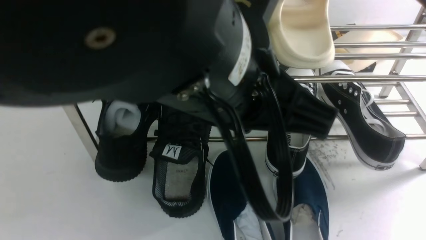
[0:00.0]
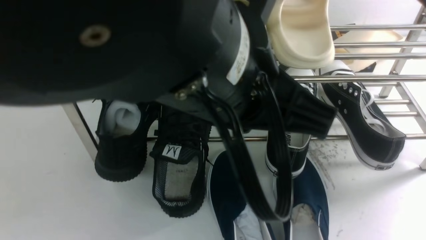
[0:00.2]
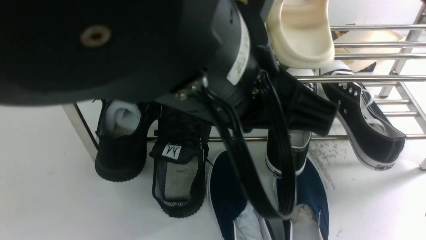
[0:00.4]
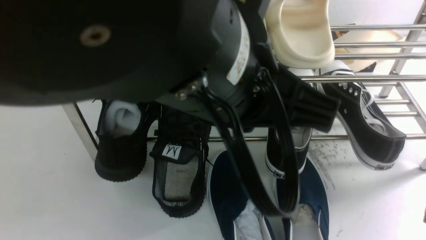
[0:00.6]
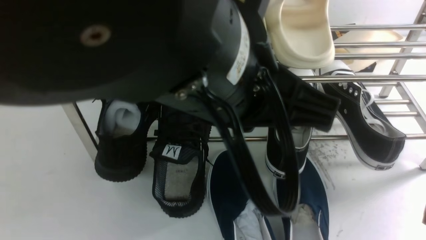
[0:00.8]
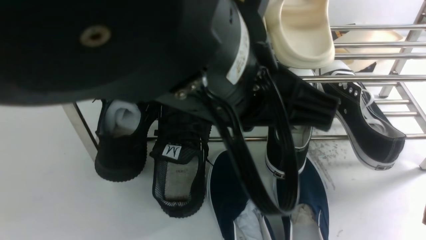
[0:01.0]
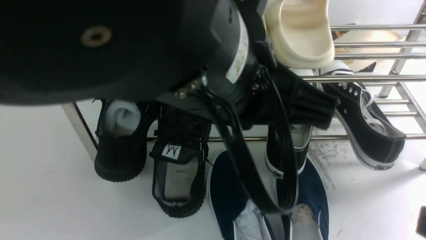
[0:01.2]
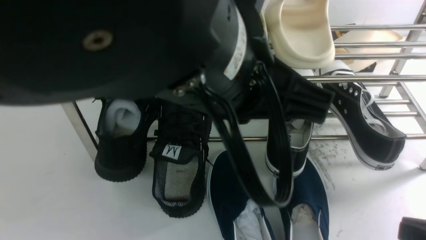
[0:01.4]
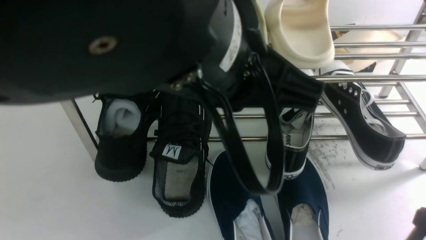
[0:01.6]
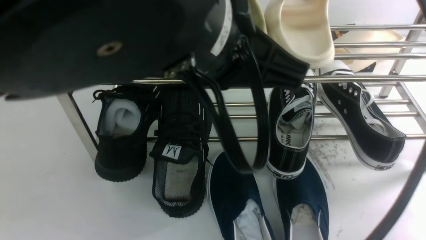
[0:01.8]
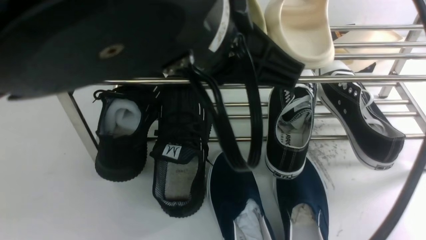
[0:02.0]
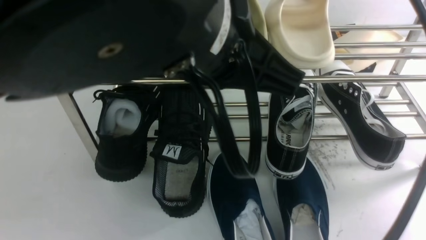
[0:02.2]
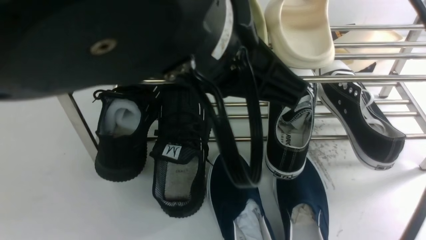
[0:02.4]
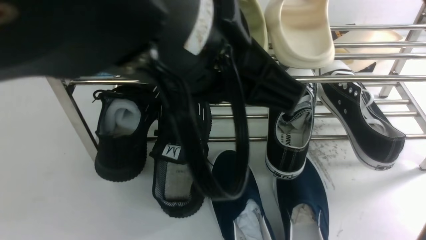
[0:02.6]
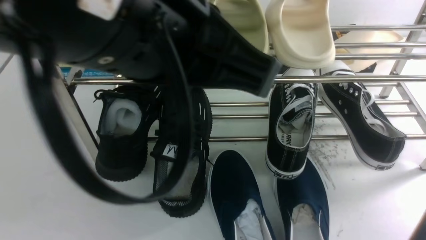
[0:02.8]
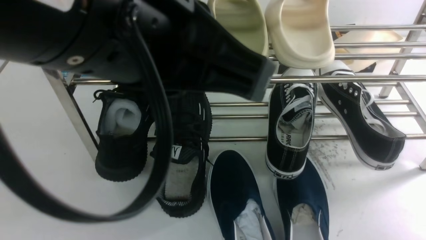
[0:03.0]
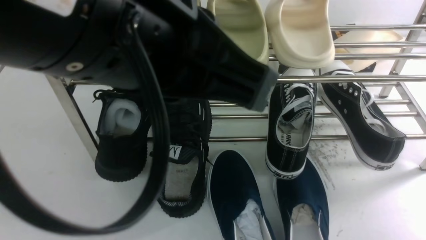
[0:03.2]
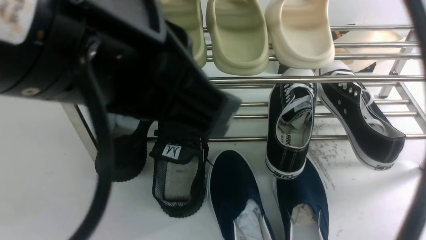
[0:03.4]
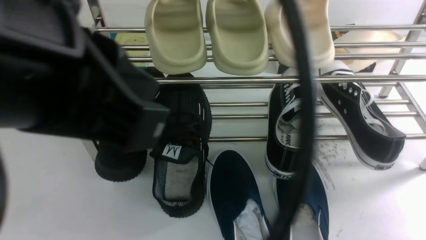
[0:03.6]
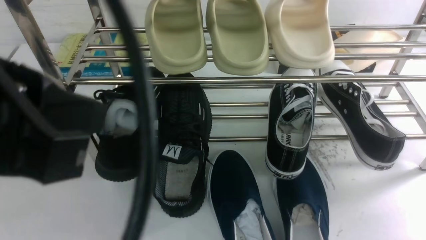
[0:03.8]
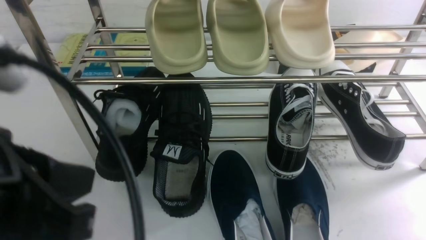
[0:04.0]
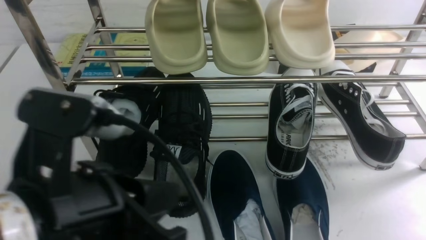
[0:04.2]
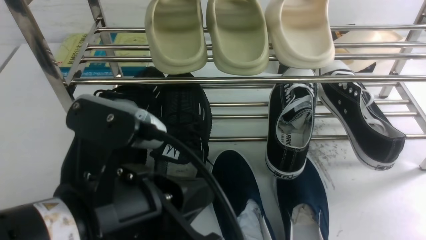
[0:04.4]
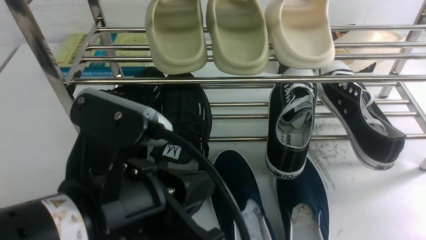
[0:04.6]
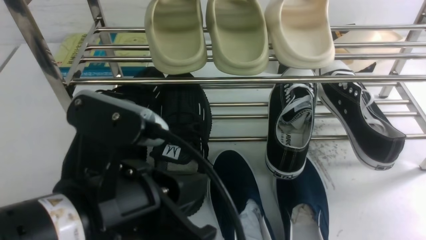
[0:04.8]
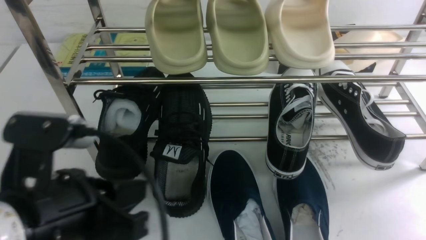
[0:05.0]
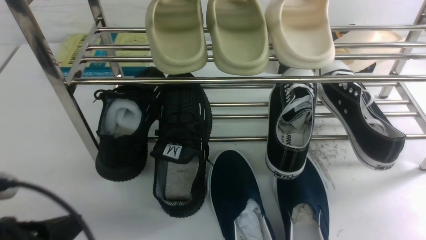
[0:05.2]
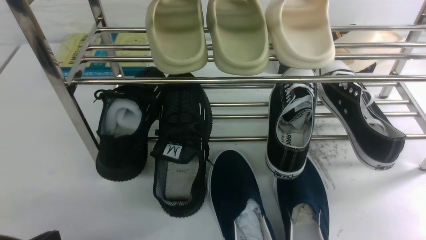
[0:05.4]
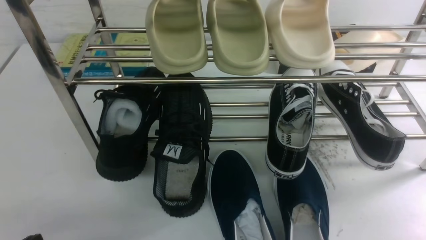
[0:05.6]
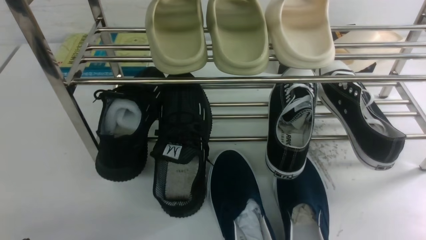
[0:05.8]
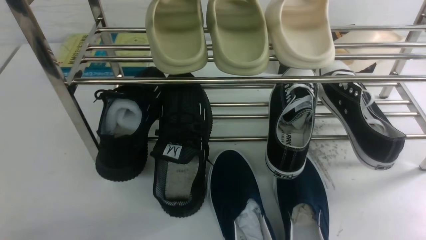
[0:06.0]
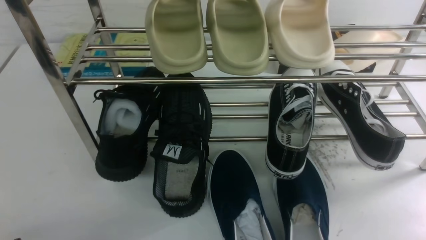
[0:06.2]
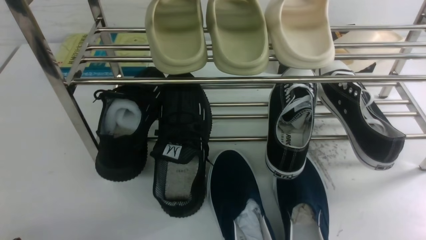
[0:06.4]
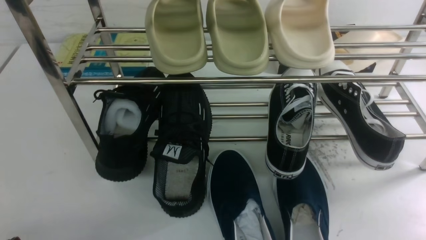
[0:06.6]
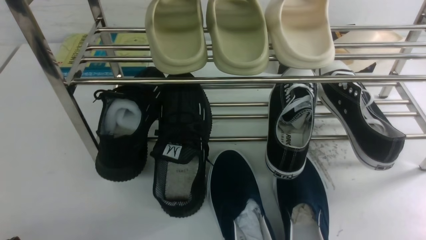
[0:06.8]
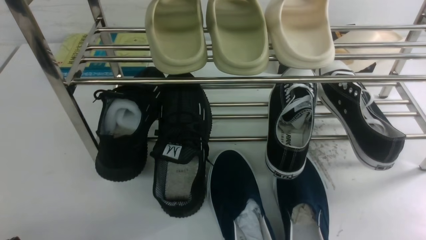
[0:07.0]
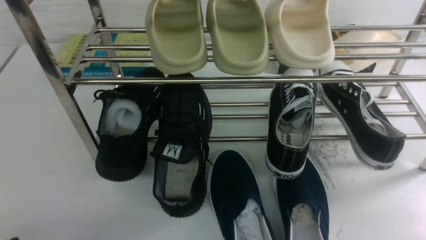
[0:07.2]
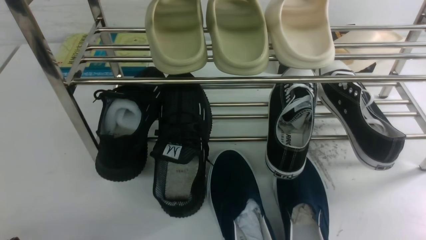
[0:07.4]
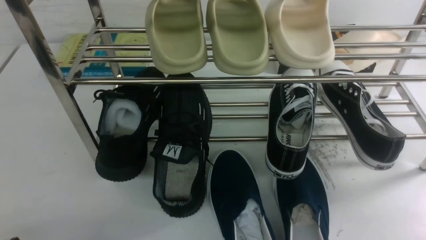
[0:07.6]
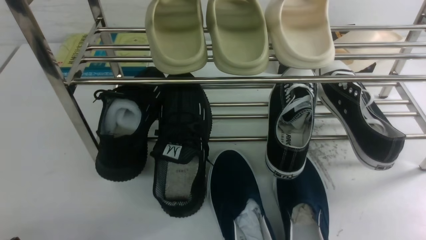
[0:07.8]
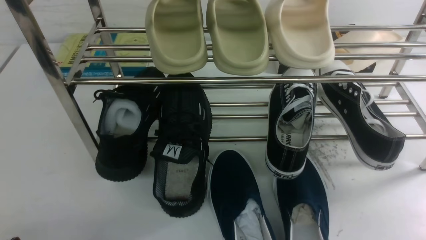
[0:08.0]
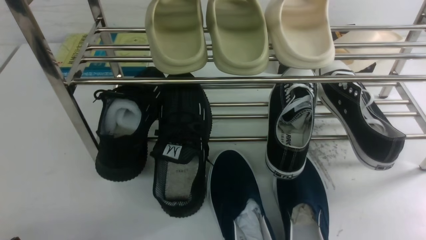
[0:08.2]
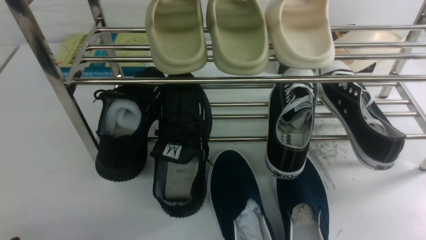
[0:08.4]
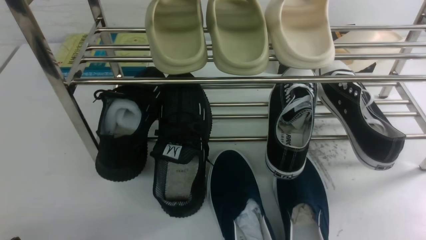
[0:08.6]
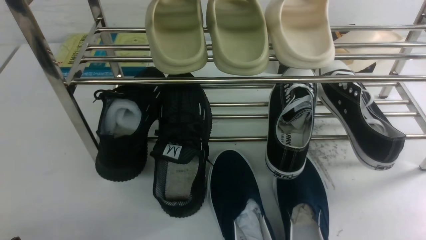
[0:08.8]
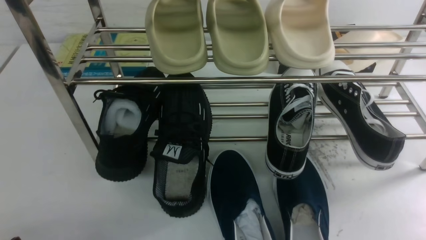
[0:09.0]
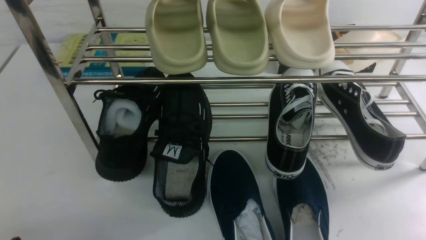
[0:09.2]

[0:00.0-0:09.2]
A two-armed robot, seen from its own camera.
0:00.0 to 0:01.6: The right gripper moves downward, roughly 10 cm.
0:01.6 to 0:03.0: The right gripper ends up roughly 5 cm from where it was. Meanwhile the left gripper changes place by roughly 5 cm.
0:03.0 to 0:04.6: The left gripper moves downward, approximately 15 cm.
0:04.6 to 0:06.2: The left gripper moves to the left and downward, approximately 25 cm.
0:06.2 to 0:09.2: The two grippers keep their place.

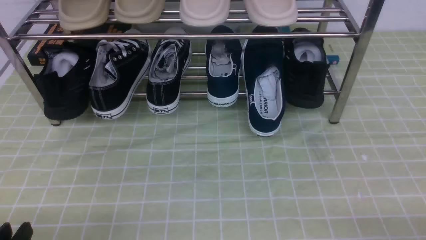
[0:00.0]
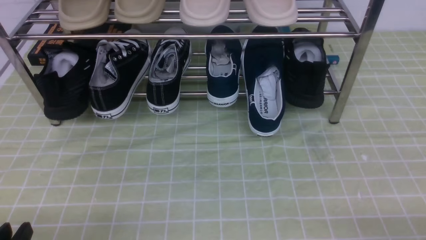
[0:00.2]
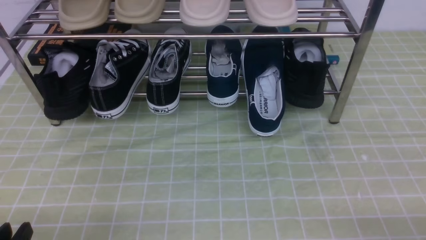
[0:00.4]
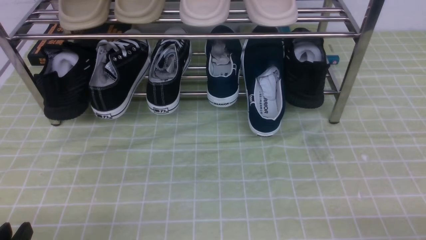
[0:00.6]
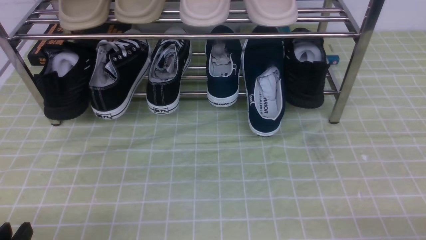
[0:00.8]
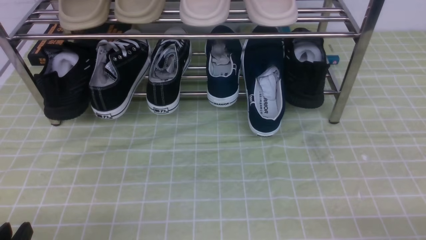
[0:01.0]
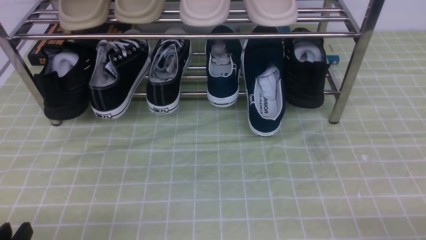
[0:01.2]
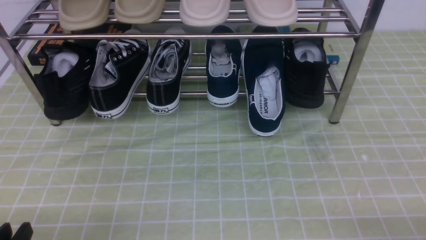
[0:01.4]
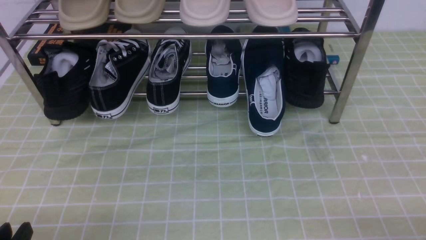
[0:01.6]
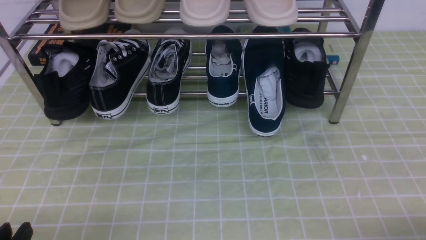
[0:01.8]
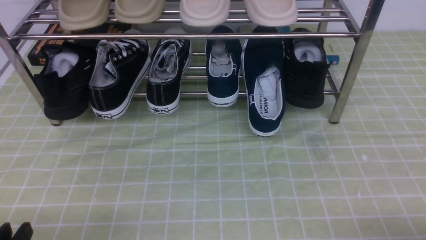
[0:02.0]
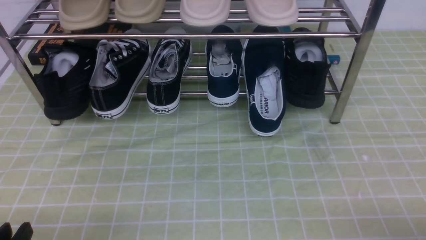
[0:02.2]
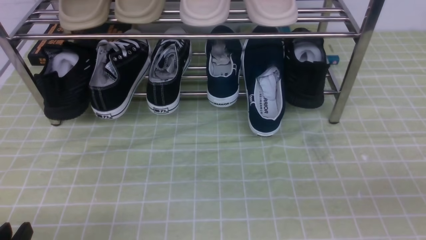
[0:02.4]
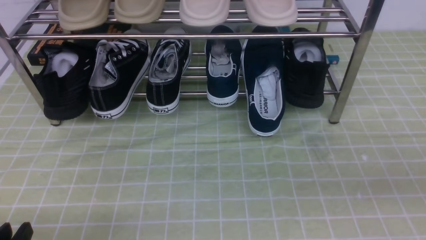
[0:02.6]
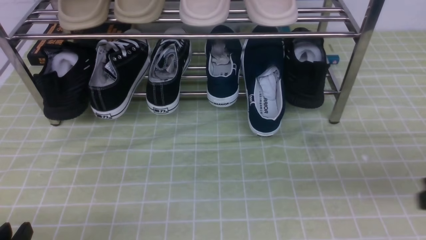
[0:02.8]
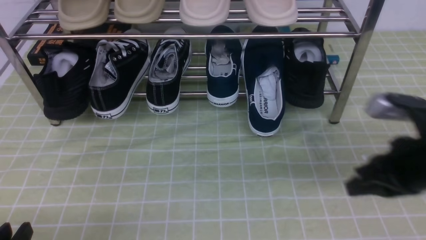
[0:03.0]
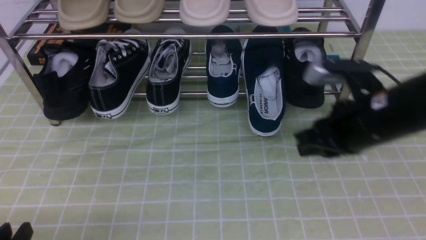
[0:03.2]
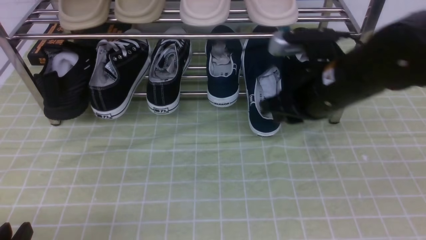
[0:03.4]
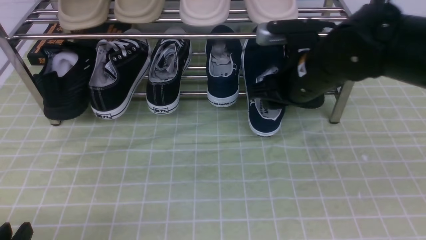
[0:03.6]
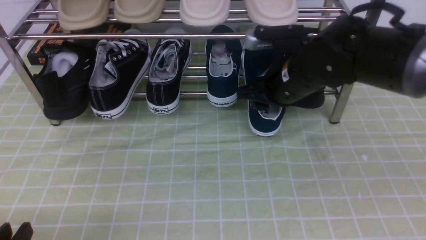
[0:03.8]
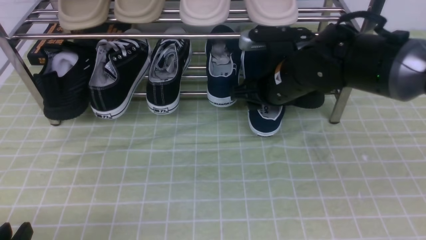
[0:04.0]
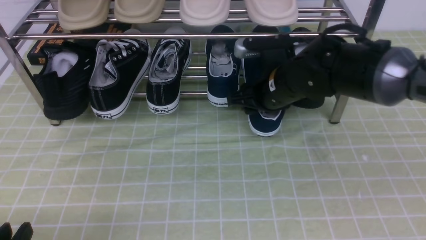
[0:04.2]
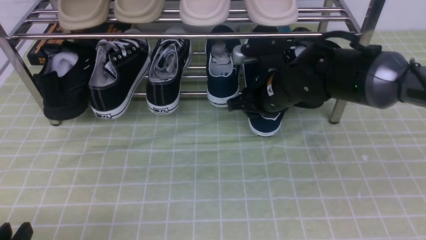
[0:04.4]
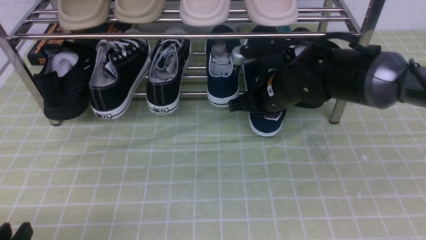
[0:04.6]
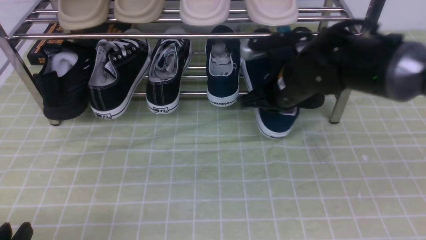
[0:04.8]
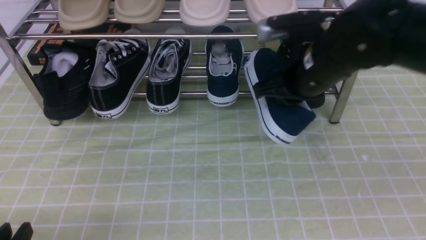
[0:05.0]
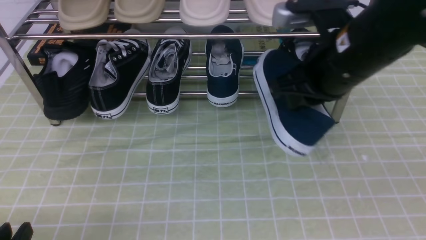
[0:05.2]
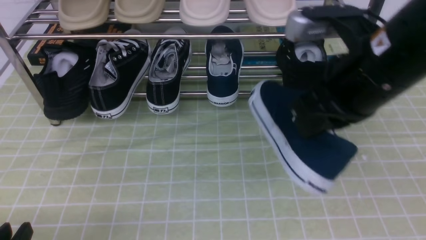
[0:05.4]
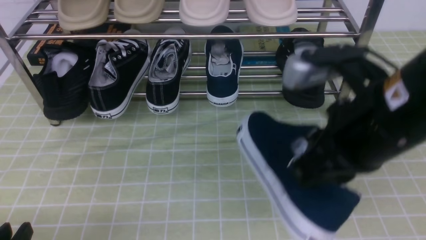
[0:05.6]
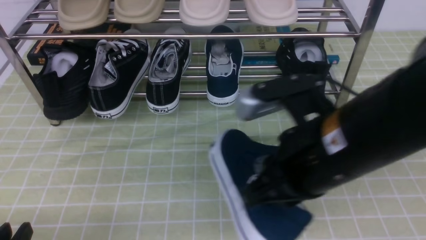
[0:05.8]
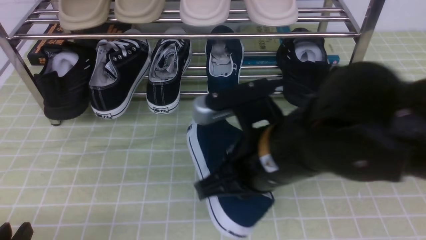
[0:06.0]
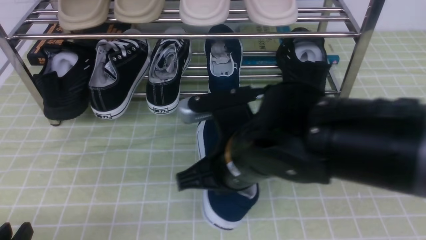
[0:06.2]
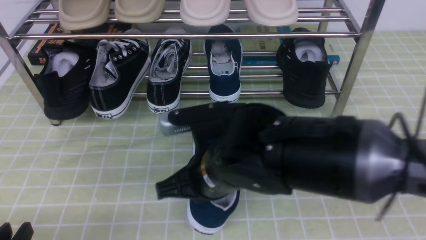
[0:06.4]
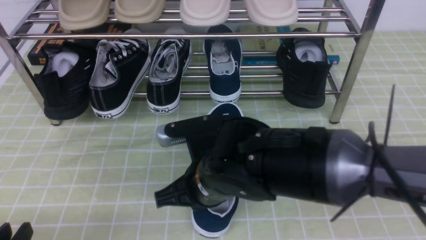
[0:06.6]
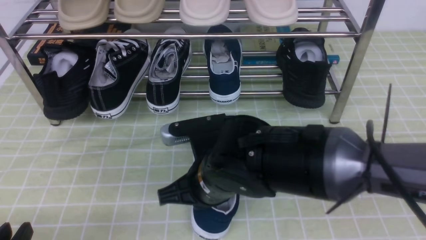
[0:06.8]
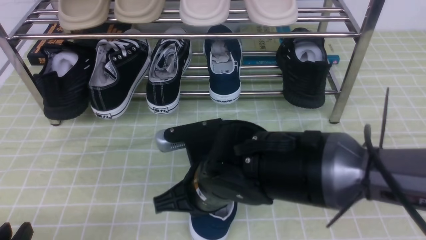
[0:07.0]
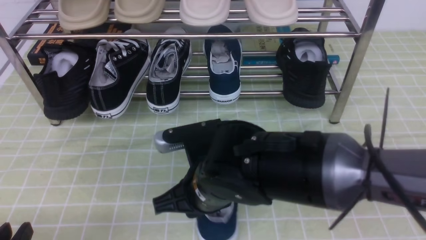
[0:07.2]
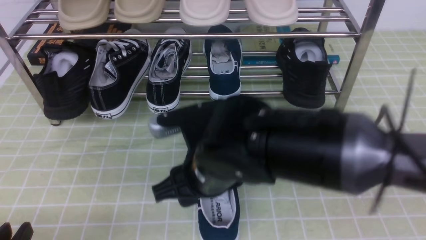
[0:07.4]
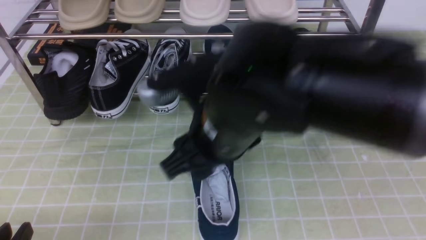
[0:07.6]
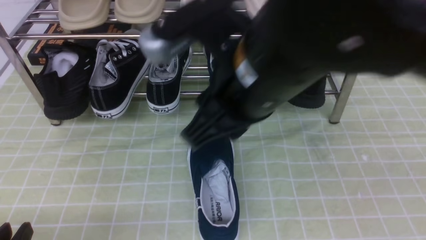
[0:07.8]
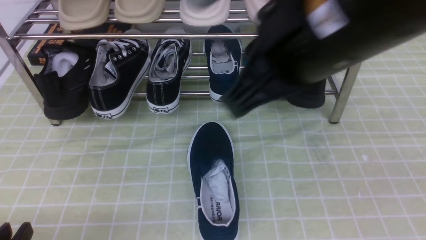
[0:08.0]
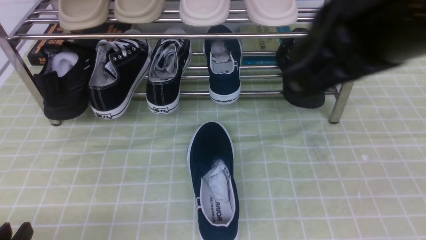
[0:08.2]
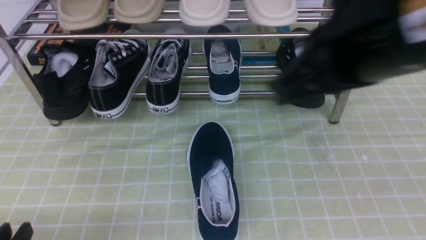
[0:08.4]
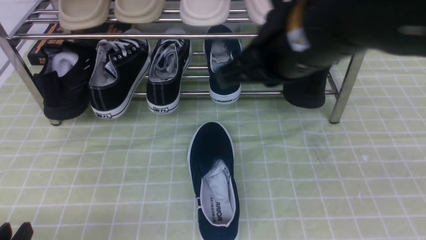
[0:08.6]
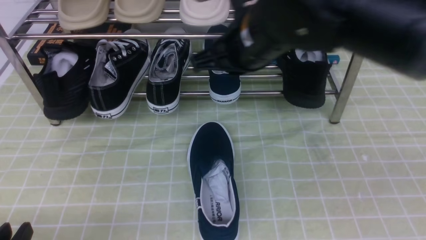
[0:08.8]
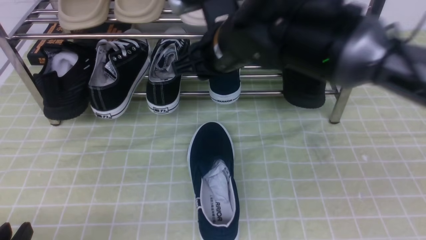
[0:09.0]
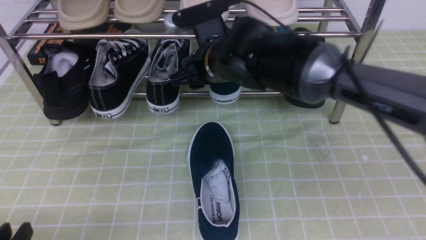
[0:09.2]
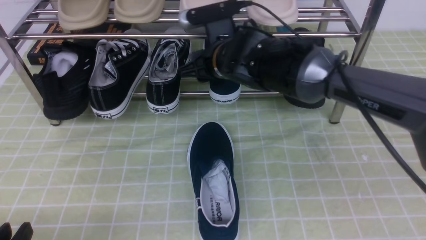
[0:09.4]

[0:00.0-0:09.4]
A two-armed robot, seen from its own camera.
Step, 0:00.0 to 0:04.6: use the right arm to clamp a shoe on the right side of the shoe rack.
Step, 0:04.8 to 0:07.2: use the right arm to take out the clamped shoe from the shoe rack and put it down.
0:01.6 to 0:03.2: The right gripper moves forward, to the left and upward, about 30 cm.
0:03.2 to 0:04.8: The right gripper moves forward and to the left, roughly 10 cm, and opens, then closes once more.
0:04.8 to 0:06.2: The right gripper shifts some 15 cm backward and to the left.
0:06.2 to 0:07.8: The right gripper goes approximately 15 cm upward, and opens its fingers.
0:07.8 to 0:09.4: The right gripper goes approximately 25 cm forward and downward, and opens.
